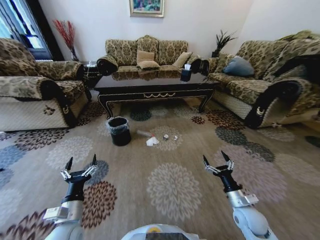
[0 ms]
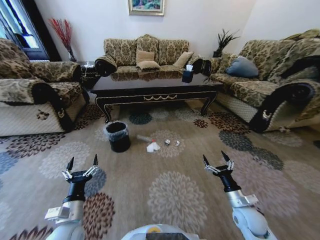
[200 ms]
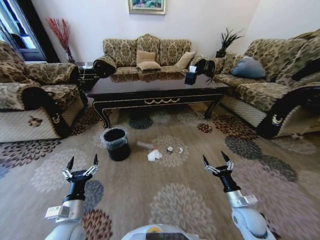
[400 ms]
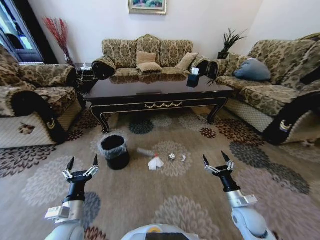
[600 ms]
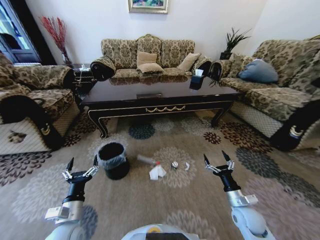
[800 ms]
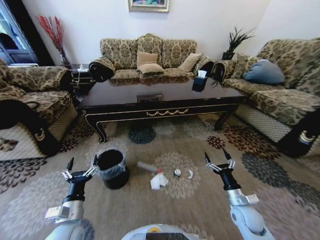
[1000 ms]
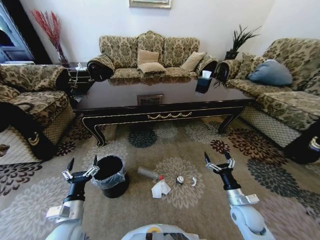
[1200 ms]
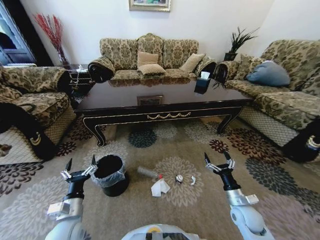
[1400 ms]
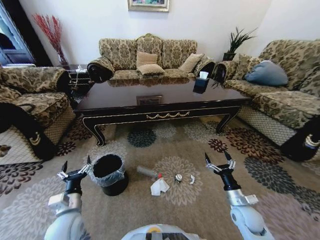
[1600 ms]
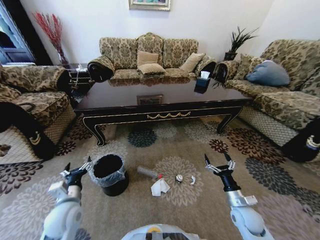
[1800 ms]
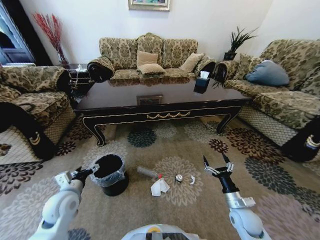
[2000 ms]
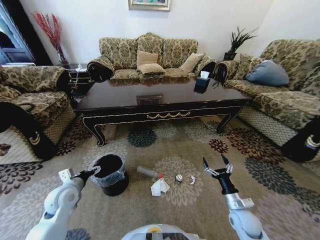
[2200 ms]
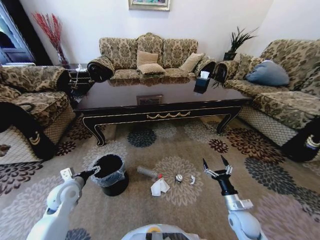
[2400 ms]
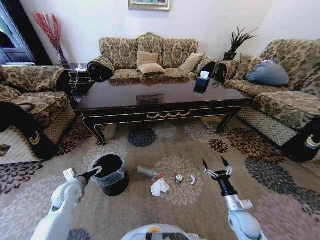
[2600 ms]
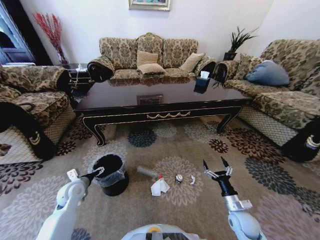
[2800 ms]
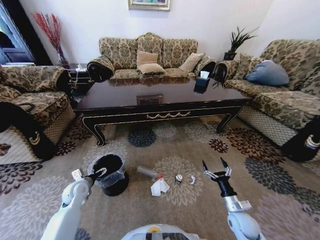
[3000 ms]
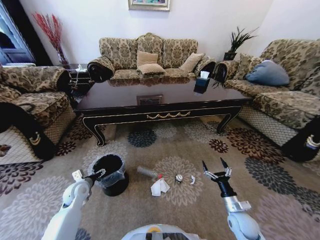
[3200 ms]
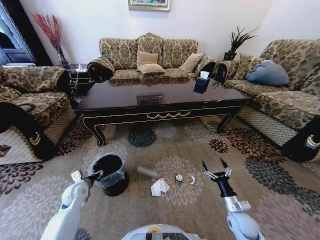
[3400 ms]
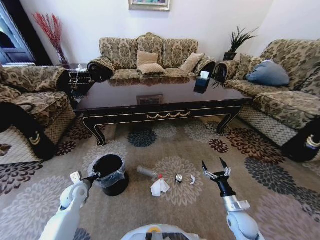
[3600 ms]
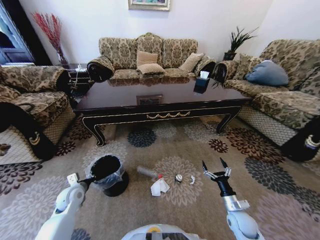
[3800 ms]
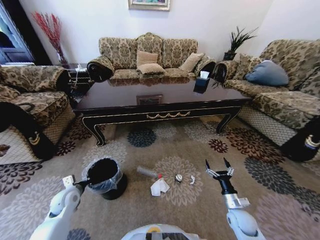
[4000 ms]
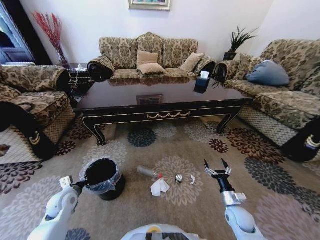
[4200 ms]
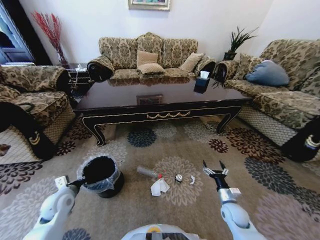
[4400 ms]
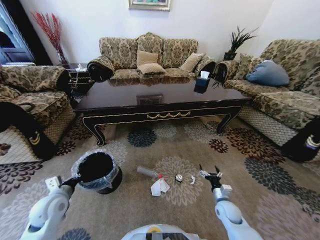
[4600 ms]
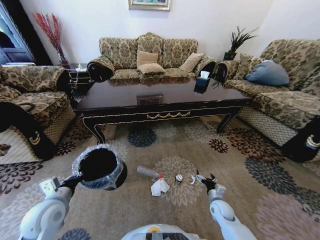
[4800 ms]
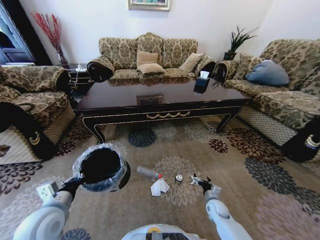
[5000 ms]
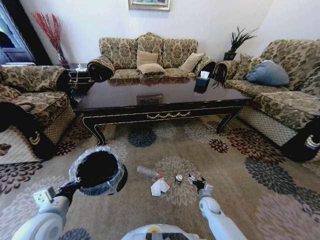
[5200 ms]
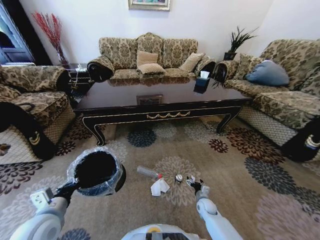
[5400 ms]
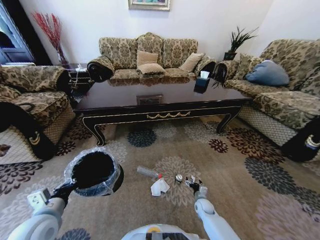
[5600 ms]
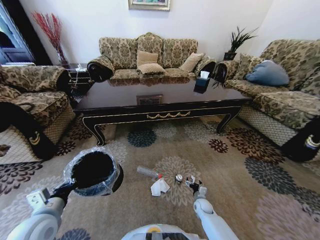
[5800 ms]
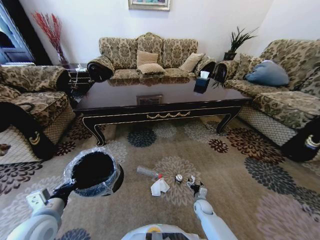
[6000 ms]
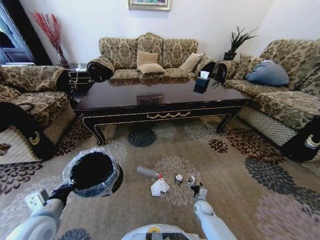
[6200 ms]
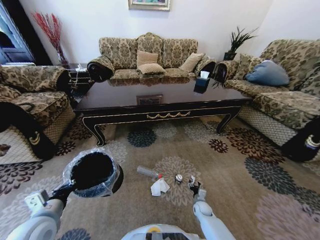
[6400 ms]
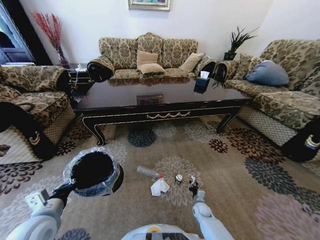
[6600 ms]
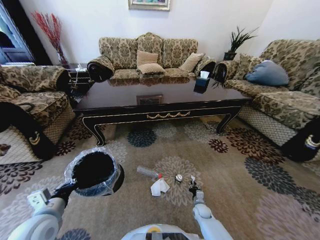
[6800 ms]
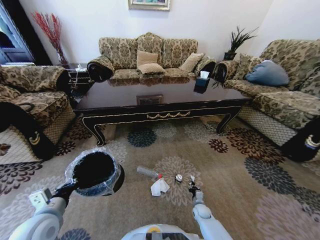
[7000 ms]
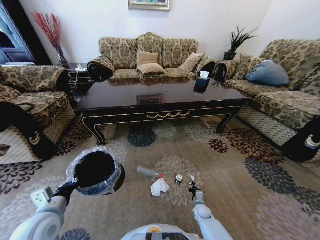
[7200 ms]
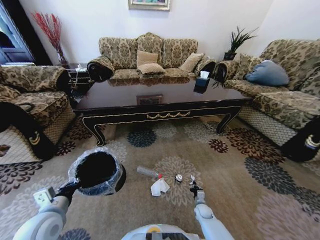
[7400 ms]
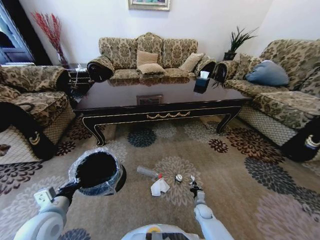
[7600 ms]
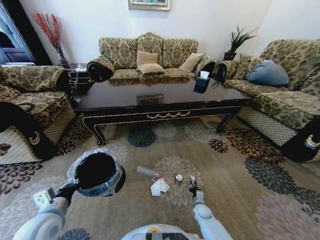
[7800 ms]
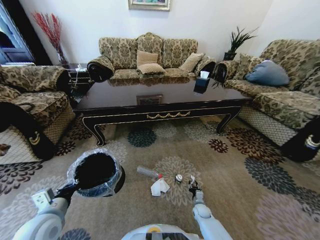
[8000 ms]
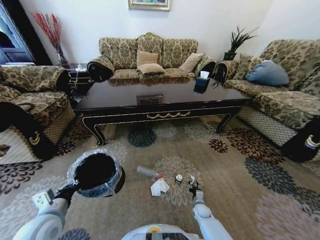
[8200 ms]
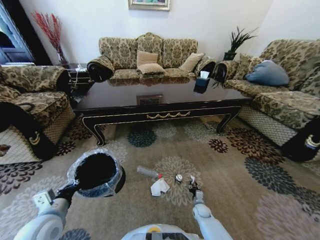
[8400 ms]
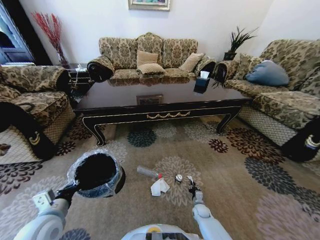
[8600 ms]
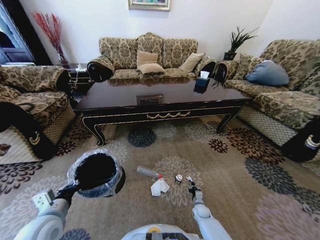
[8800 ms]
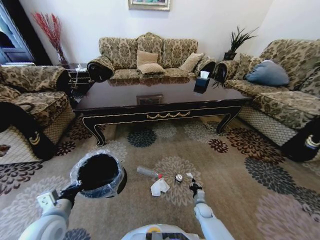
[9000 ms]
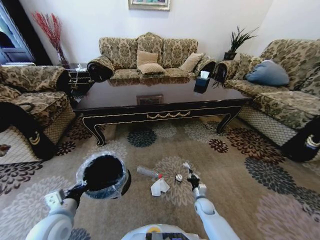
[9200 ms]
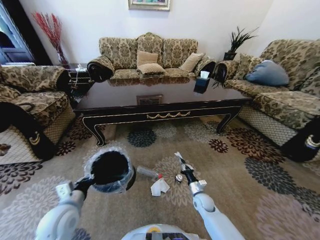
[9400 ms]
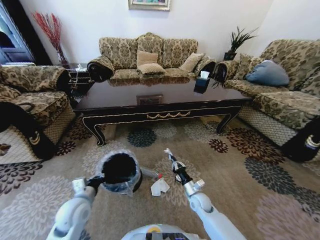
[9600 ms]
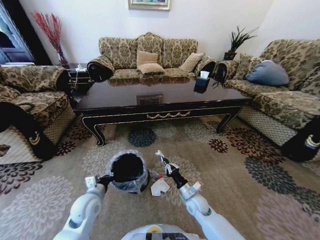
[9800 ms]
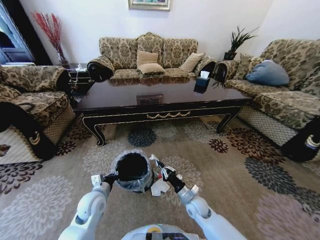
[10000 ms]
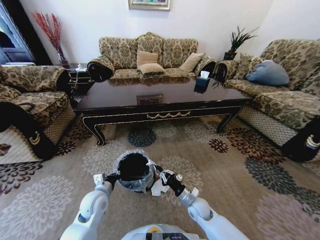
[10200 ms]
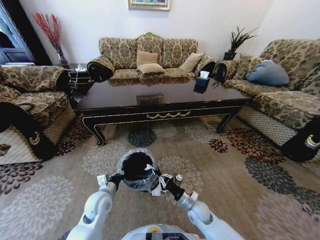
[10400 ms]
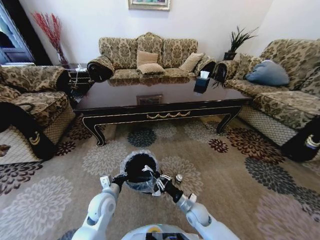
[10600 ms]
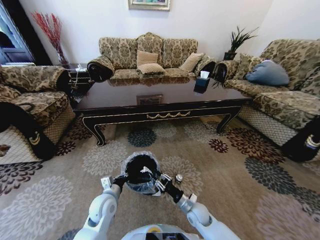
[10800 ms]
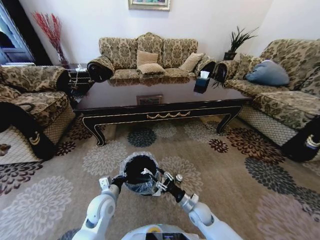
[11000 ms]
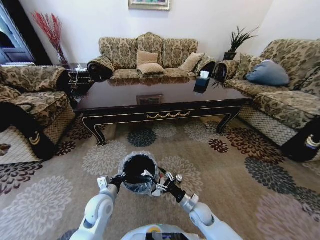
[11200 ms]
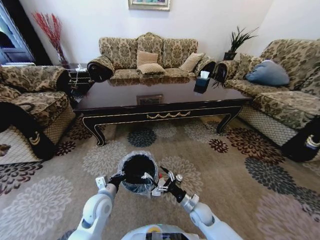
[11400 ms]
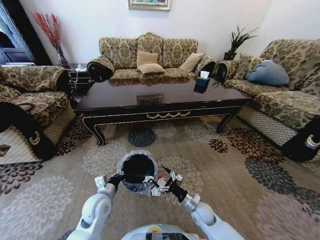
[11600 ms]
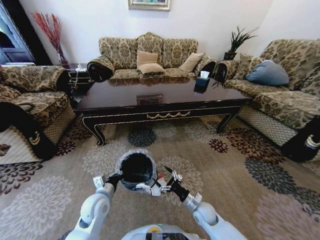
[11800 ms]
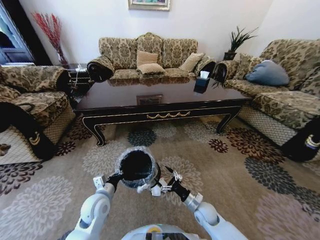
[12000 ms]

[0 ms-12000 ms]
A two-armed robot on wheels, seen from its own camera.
Task of the whole recording: Move to the front of the table and pick up the trash from the floor, then place it into the trash bin.
1600 ms to 3000 ms: The left gripper heads forward and to the left, covering some 15 cm.
3000 ms to 4400 ms: The left gripper moves backward, approximately 5 cm, and closes up.
4400 ms to 6000 ms: The right gripper shifts about 15 cm downward and to the left. The left gripper travels backward and upward by approximately 15 cm.
6000 ms to 7600 ms: The right gripper closes its fingers.
7600 ms to 9000 ms: The right gripper opens, then closes once more.
9000 ms to 10400 ms: The left gripper shifts approximately 15 cm to the right, forward and downward; the right gripper goes some 20 cm upward and to the left.
10400 ms to 12000 ms: The right gripper opens its fingers.

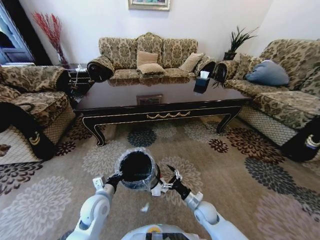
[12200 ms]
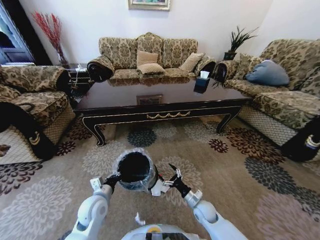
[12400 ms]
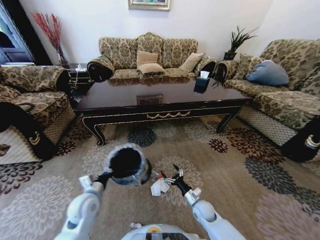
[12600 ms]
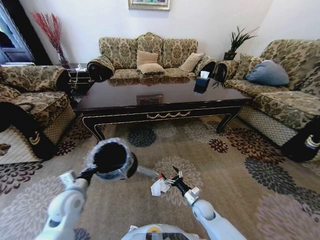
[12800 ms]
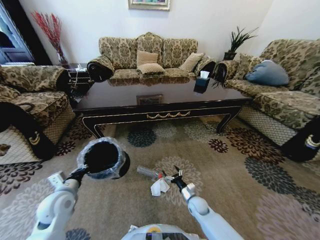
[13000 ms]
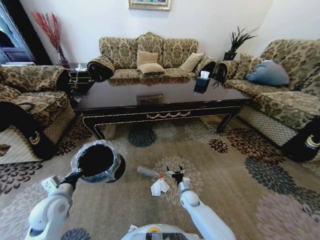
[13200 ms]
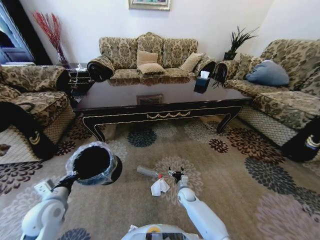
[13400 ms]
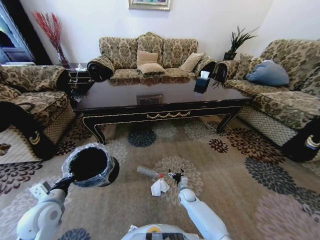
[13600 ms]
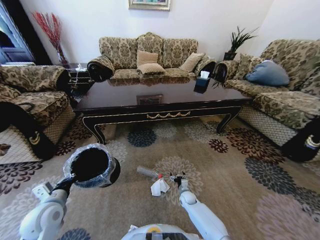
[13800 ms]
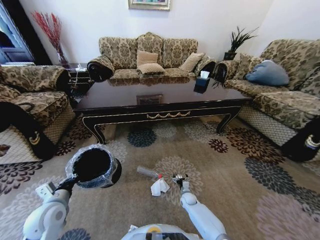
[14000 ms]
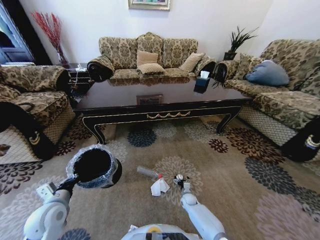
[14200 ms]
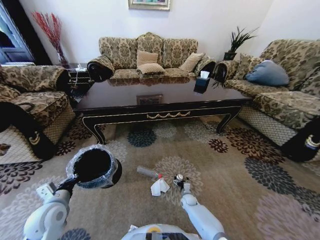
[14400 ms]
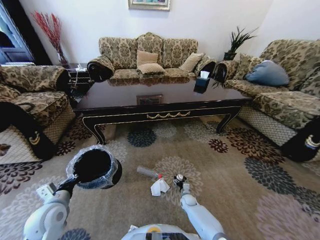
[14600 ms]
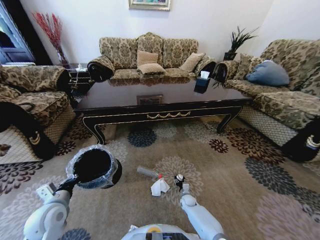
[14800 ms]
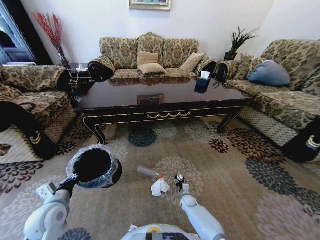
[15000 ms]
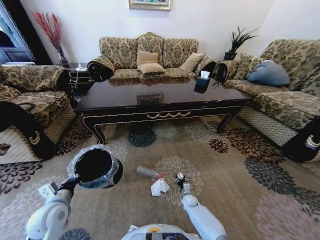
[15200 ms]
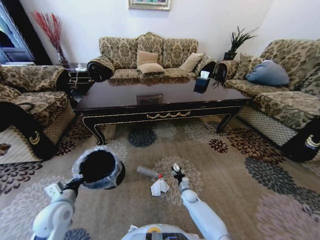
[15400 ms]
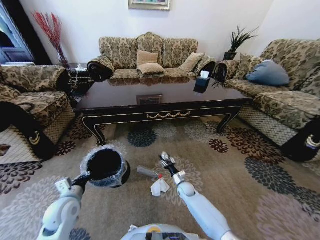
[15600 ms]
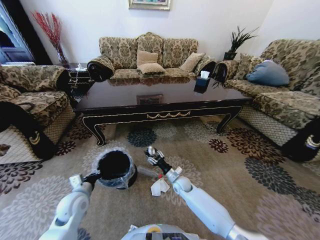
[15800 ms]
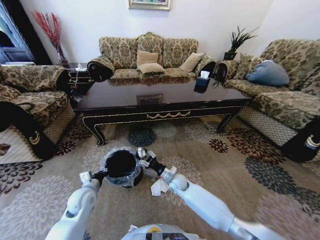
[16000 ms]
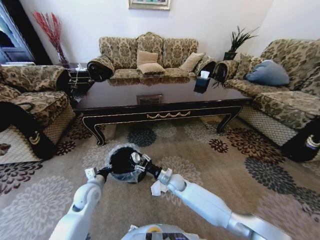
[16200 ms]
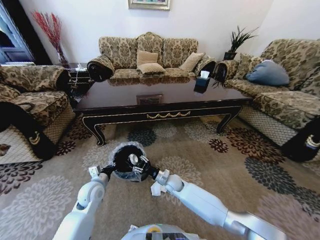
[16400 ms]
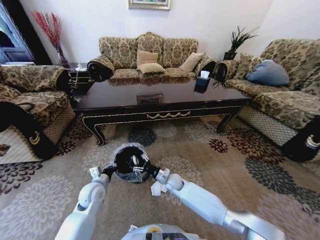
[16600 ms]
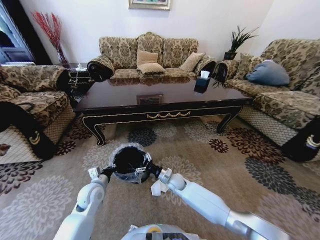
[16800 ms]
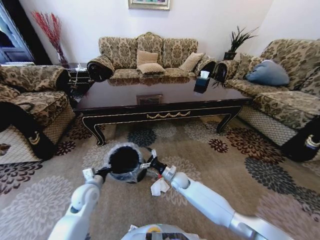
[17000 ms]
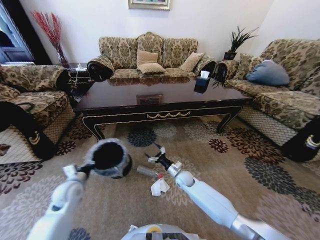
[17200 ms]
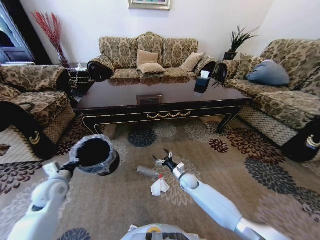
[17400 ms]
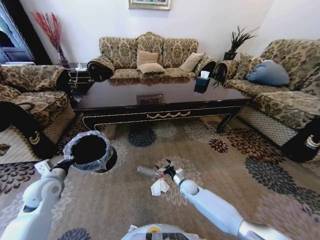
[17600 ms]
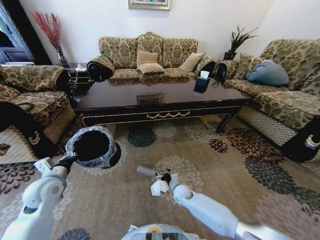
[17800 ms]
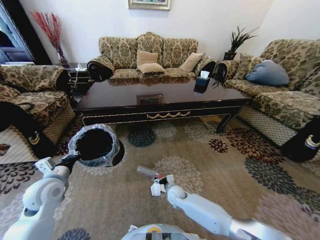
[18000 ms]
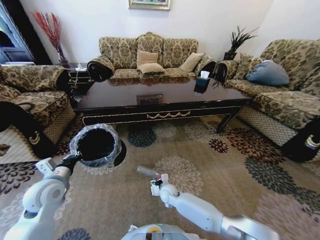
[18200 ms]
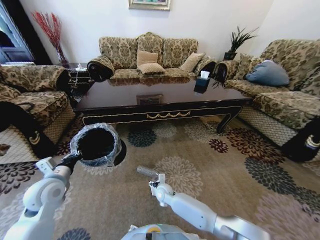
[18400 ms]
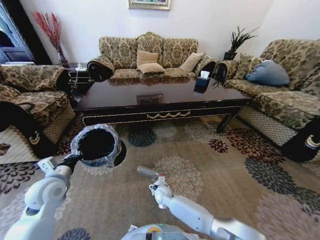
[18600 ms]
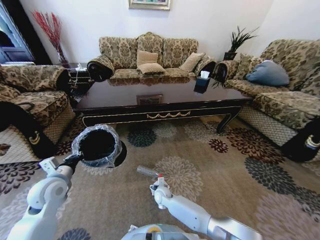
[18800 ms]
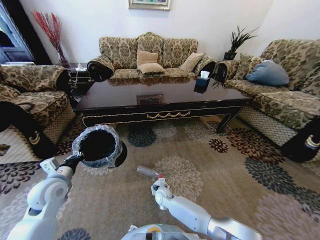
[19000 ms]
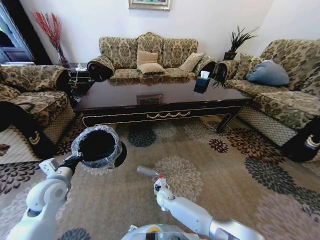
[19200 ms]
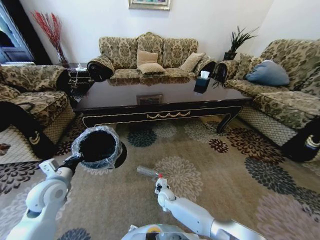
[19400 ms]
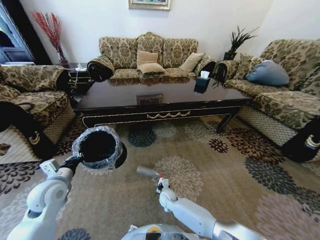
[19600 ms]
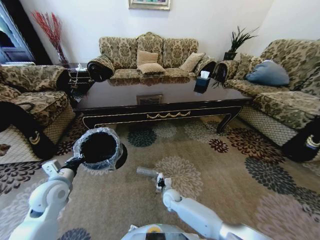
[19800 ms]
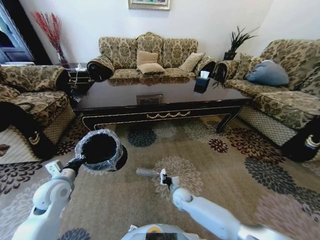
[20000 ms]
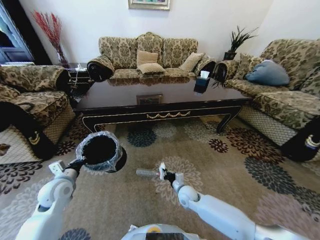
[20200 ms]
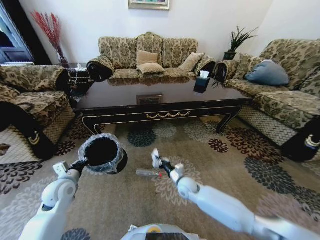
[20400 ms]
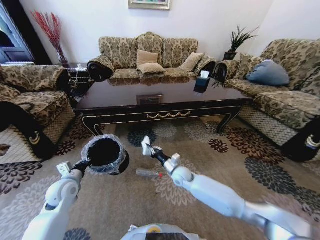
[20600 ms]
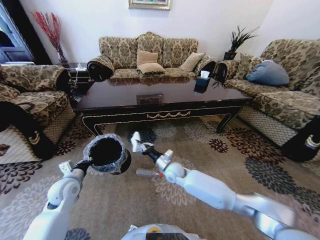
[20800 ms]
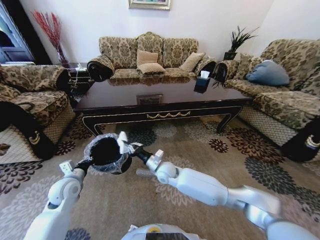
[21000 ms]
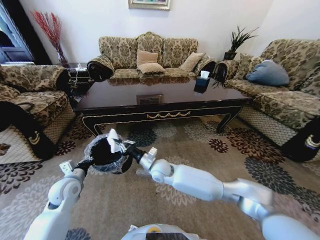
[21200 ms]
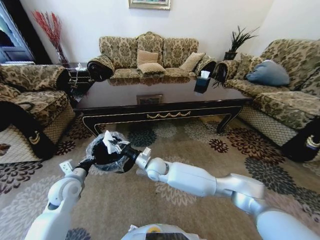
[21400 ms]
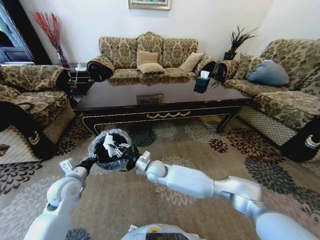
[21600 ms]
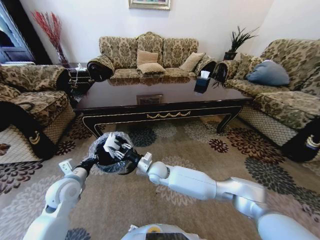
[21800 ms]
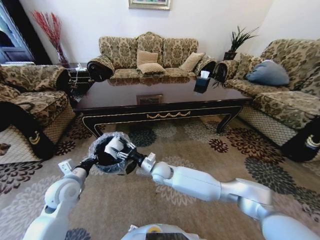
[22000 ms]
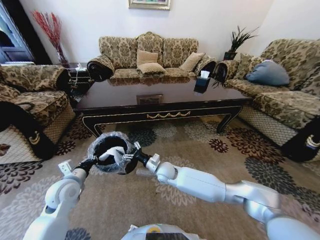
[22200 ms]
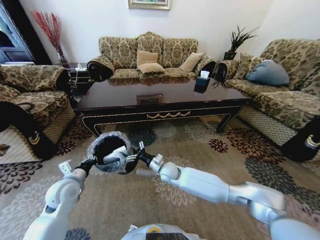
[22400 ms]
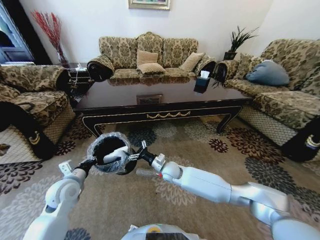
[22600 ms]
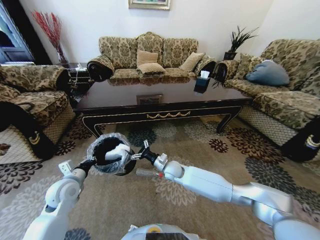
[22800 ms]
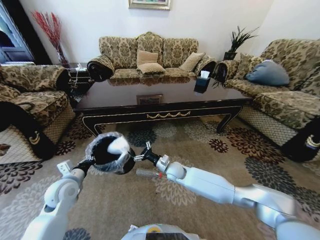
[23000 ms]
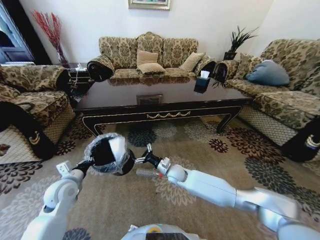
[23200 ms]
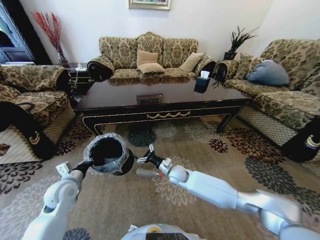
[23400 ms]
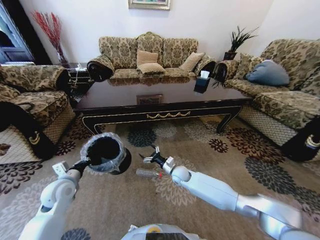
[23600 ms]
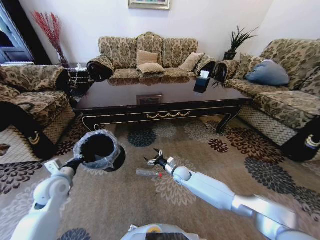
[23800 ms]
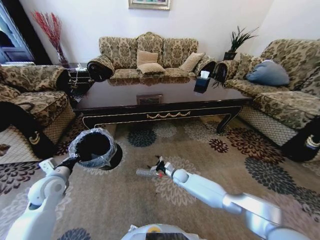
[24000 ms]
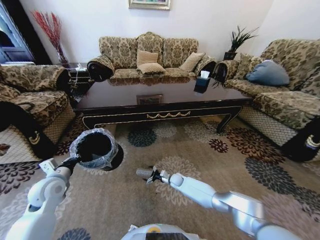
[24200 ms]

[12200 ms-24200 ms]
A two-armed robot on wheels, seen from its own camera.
Task of the whole recording: Move to the front of the table and pick up the trash from the floor, then place it into the trash bin.
12200 ms to 13800 ms: The left gripper goes some 15 cm to the left. The right gripper shifts approximately 15 cm downward and forward.
13800 ms to 15200 ms: The right gripper closes up.
15200 ms to 16600 ms: The left gripper is displaced to the right and forward by roughly 15 cm, while the right gripper heads upward and to the left, covering about 20 cm.
16600 ms to 18200 ms: The left gripper heads upward and to the left, covering approximately 15 cm. The right gripper goes to the right and returns, some 10 cm each way.
18200 ms to 19800 ms: The right gripper shifts by some 5 cm, and closes up.
19800 ms to 21200 ms: The left gripper shifts by about 5 cm. Meanwhile the right gripper is displaced upward by about 25 cm.
21200 ms to 22600 ms: The right gripper shifts approximately 10 cm to the right and downward, and opens up.
22600 ms to 24200 ms: The left gripper is displaced to the left by roughly 5 cm. The right gripper moves downward, about 20 cm.
